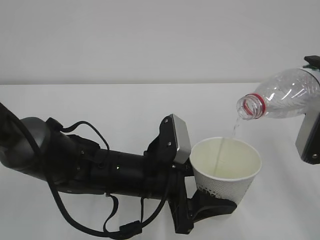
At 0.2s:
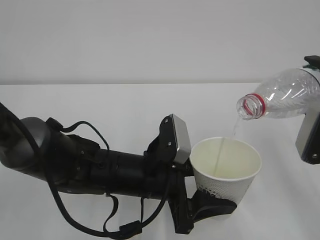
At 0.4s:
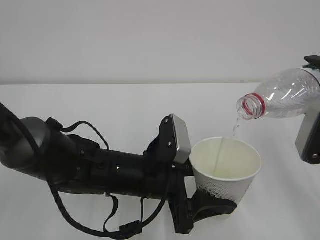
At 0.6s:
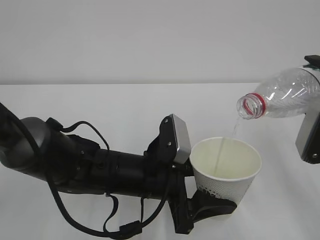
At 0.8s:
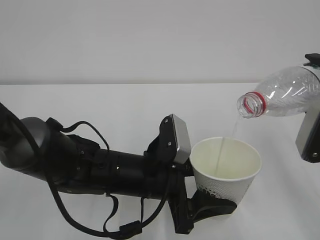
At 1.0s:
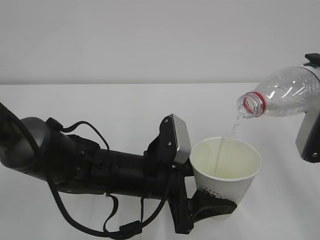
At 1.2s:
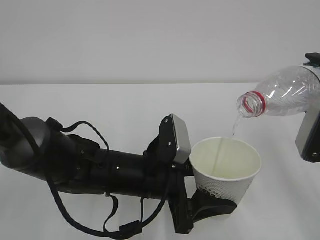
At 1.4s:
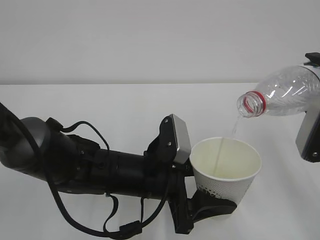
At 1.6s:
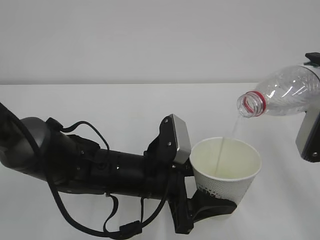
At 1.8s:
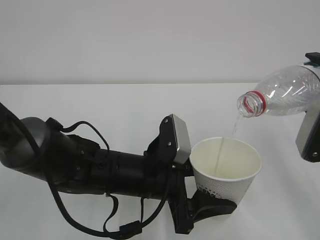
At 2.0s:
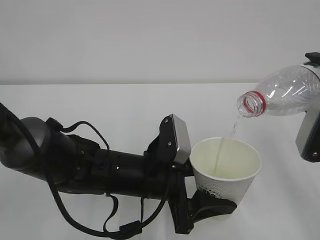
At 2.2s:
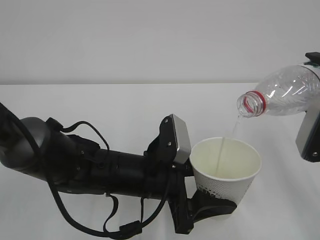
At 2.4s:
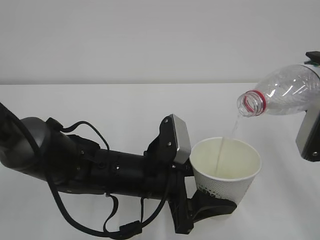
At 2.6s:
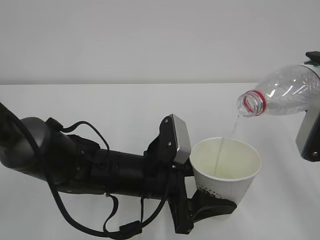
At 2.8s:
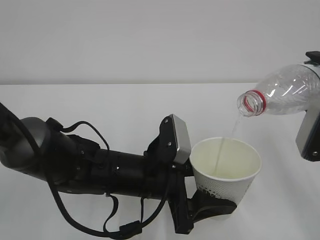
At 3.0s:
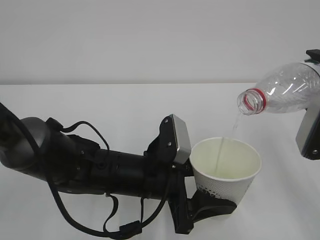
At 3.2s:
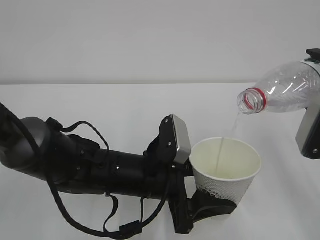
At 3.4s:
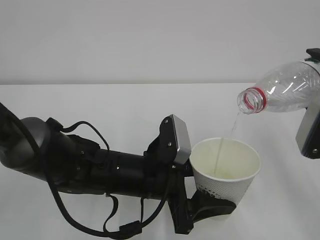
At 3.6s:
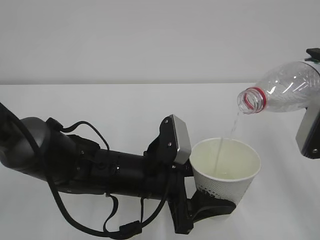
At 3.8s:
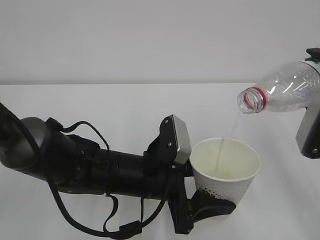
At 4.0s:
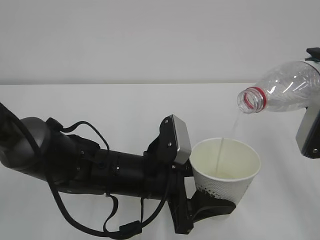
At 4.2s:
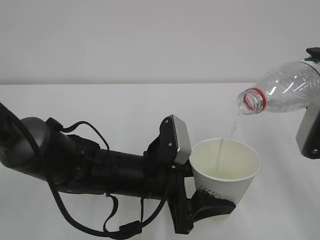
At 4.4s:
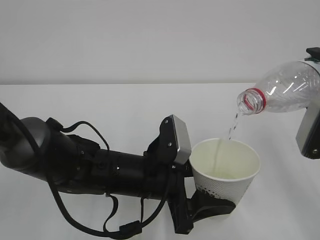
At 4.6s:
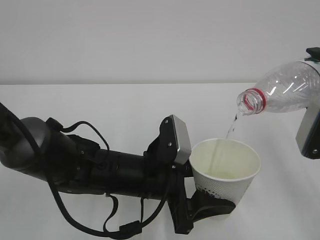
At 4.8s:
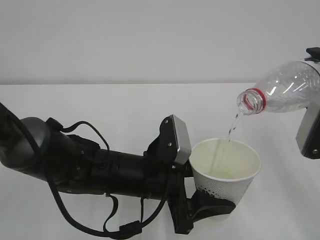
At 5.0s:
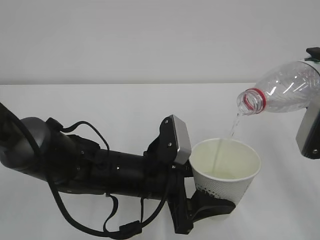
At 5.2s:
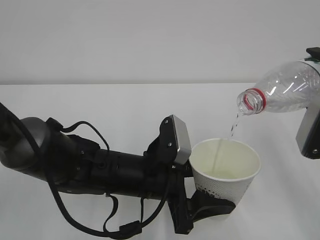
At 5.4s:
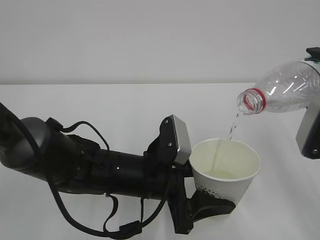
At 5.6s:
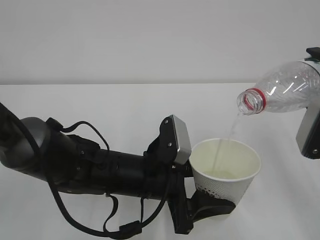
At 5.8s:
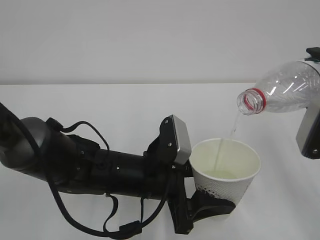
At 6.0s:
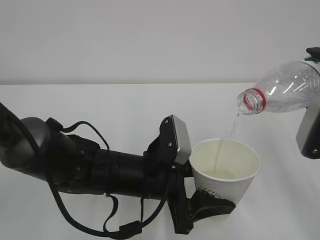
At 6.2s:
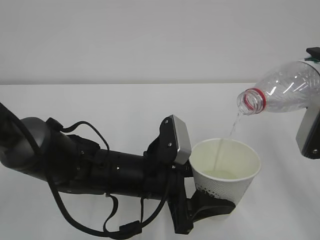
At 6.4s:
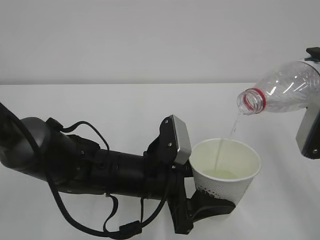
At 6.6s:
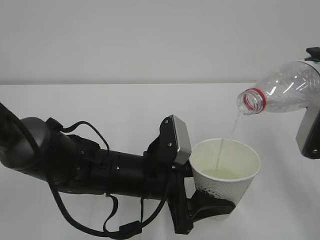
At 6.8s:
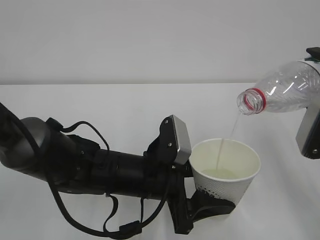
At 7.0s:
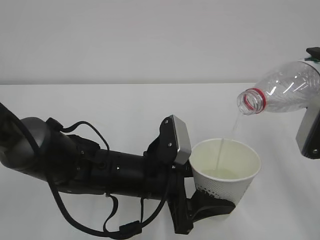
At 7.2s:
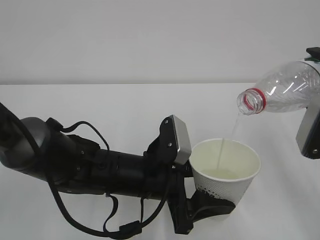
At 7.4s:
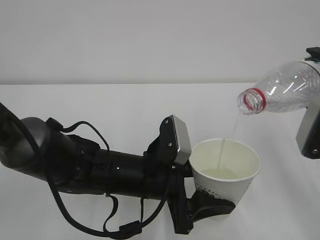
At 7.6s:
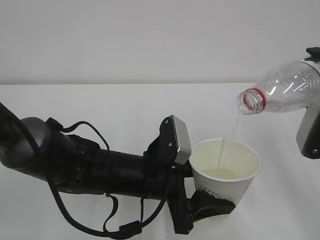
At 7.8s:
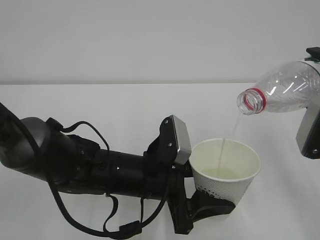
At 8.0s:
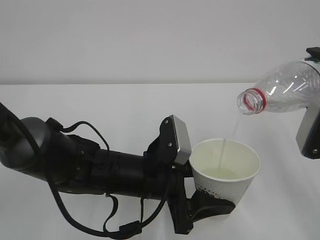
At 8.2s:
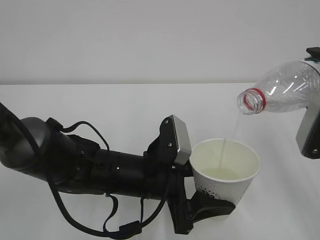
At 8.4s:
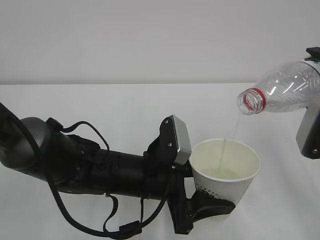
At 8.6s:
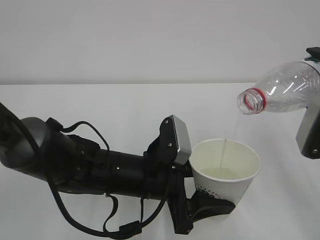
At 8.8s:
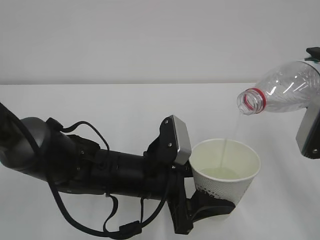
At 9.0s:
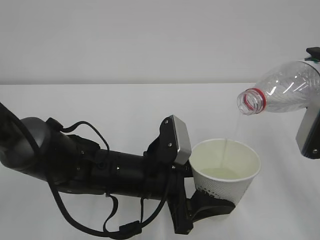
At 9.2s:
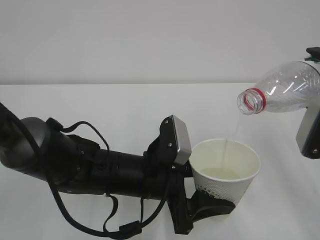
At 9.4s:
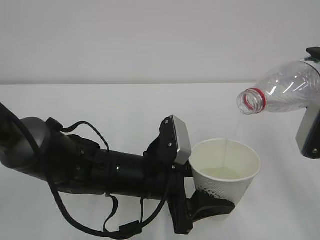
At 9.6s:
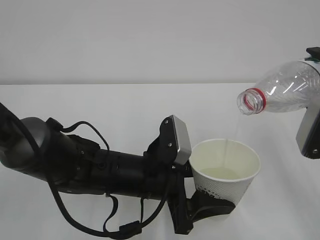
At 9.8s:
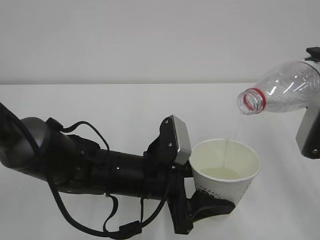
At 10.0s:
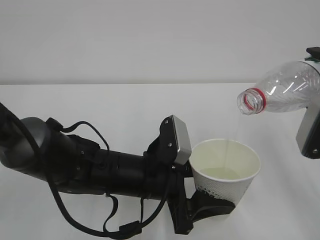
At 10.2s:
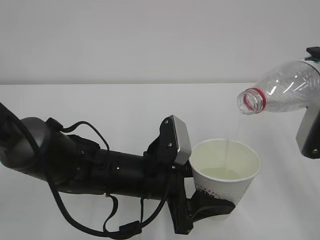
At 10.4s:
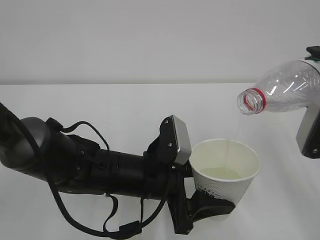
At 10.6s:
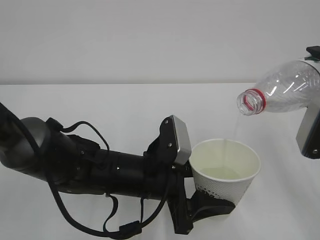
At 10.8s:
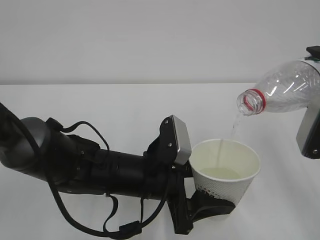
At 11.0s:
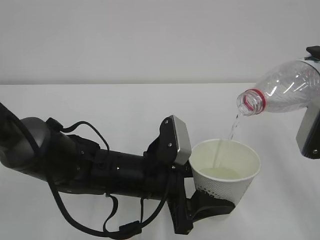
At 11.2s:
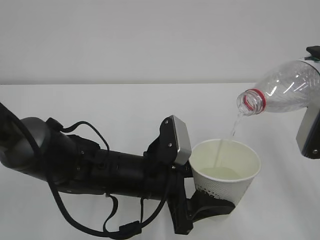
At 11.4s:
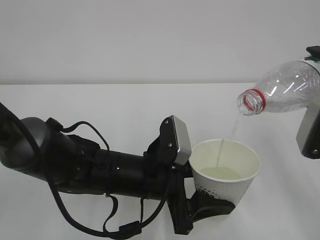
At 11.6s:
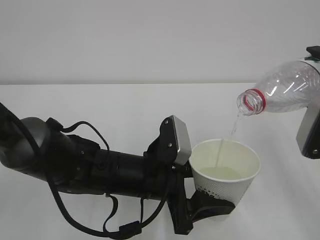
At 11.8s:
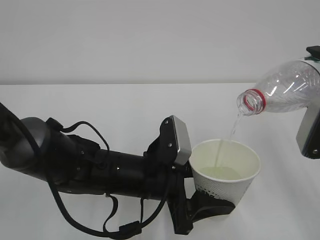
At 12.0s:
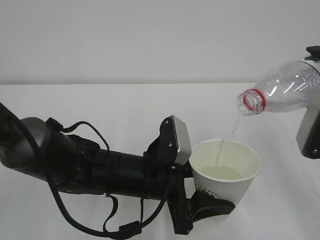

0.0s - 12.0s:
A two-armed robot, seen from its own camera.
0.0s - 12.0s: Both grippers stay about where they are.

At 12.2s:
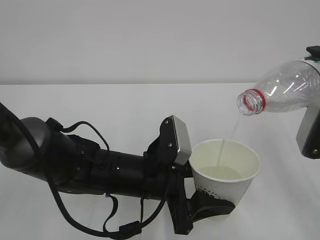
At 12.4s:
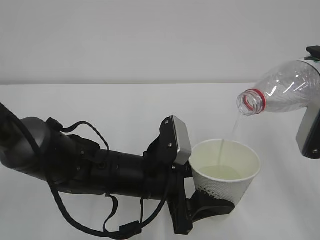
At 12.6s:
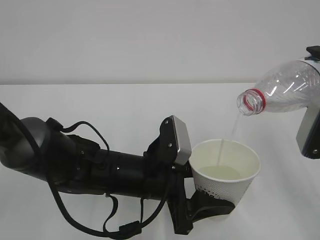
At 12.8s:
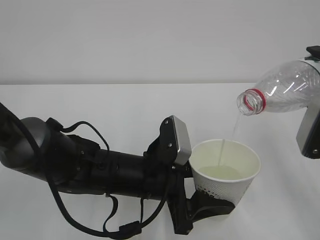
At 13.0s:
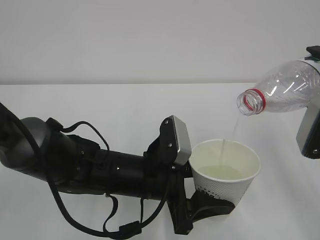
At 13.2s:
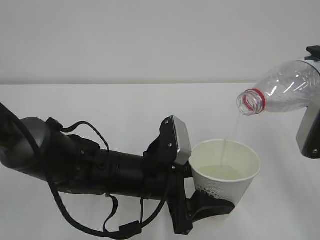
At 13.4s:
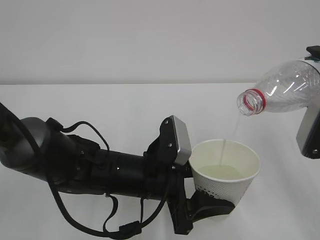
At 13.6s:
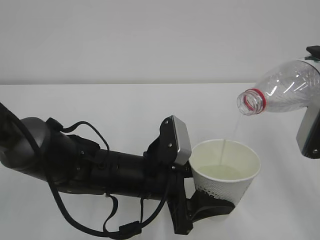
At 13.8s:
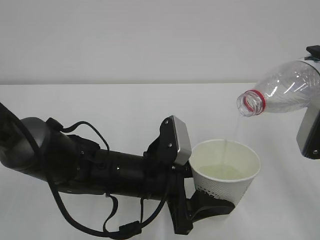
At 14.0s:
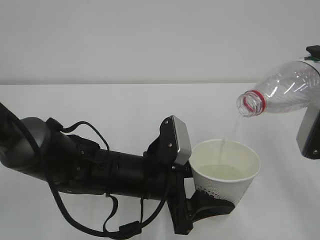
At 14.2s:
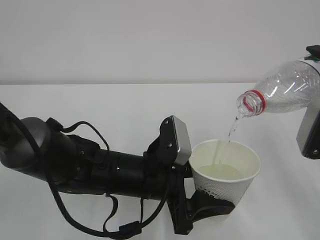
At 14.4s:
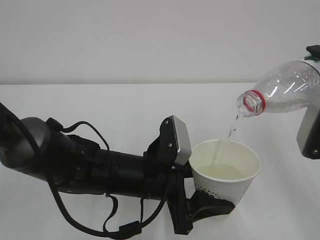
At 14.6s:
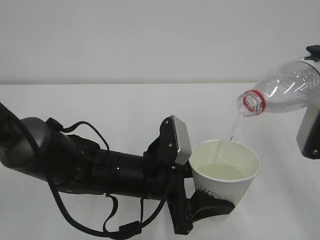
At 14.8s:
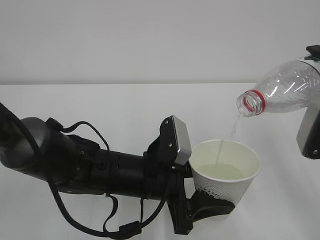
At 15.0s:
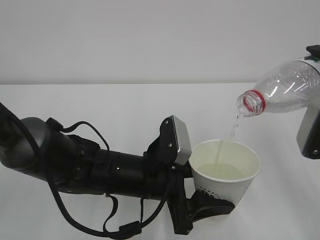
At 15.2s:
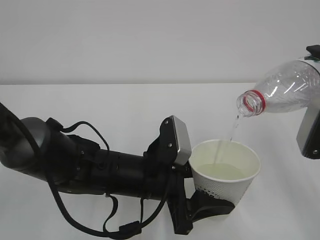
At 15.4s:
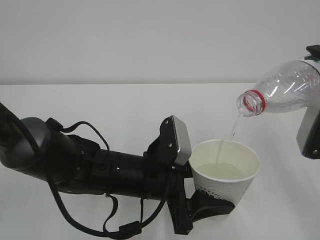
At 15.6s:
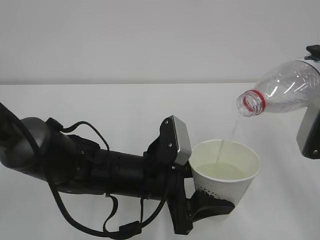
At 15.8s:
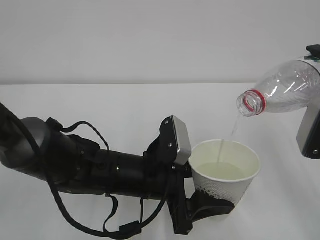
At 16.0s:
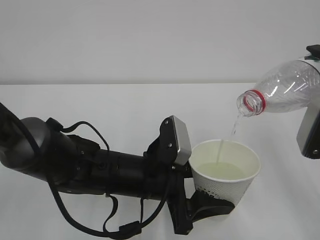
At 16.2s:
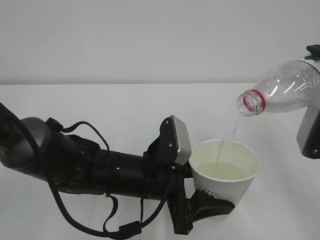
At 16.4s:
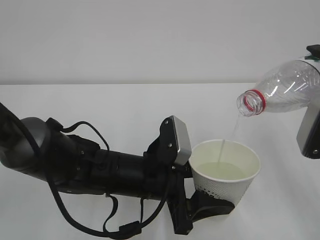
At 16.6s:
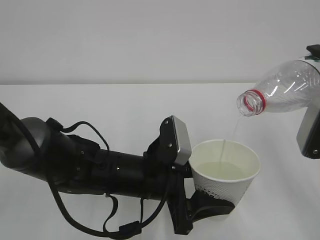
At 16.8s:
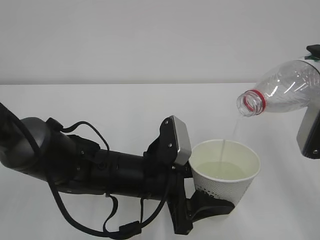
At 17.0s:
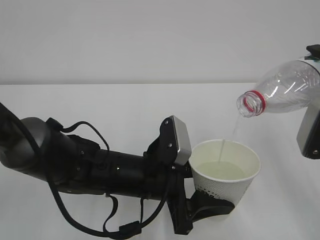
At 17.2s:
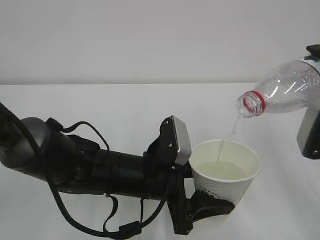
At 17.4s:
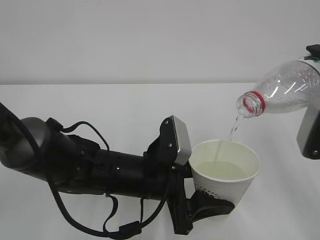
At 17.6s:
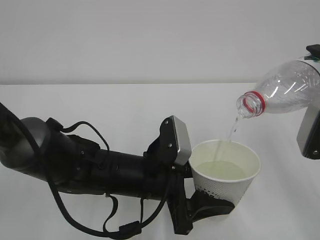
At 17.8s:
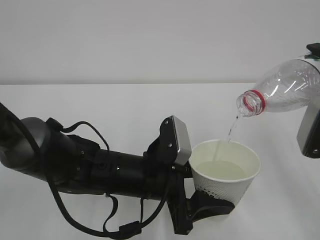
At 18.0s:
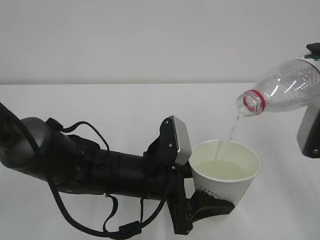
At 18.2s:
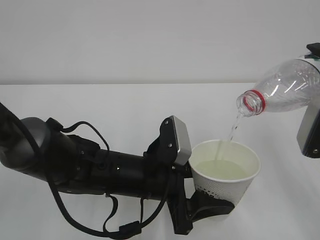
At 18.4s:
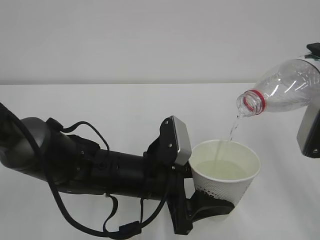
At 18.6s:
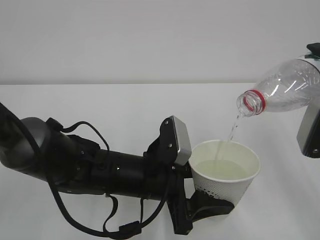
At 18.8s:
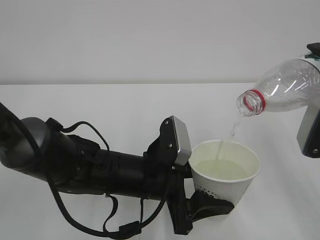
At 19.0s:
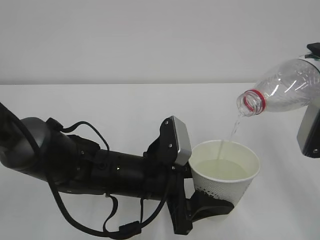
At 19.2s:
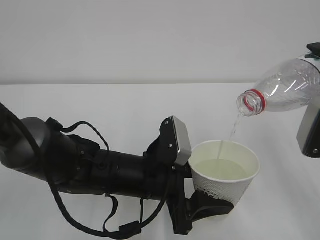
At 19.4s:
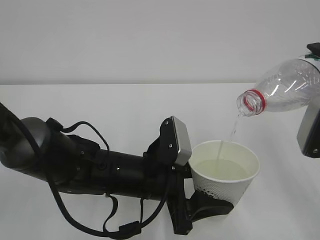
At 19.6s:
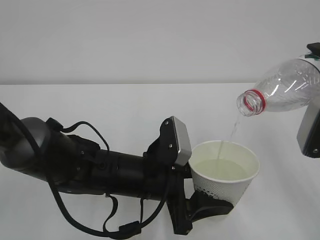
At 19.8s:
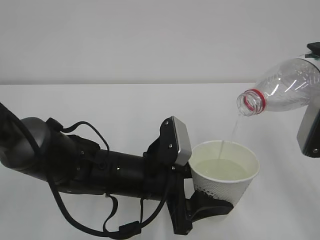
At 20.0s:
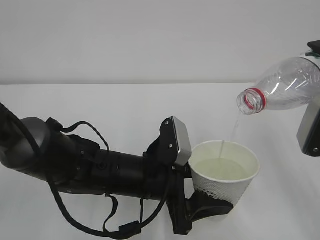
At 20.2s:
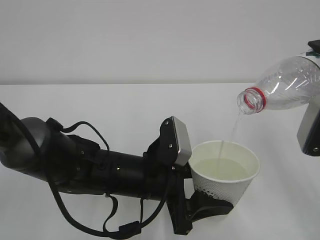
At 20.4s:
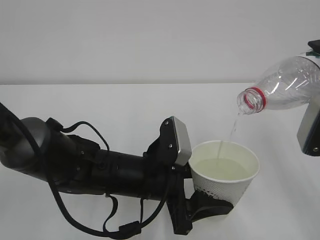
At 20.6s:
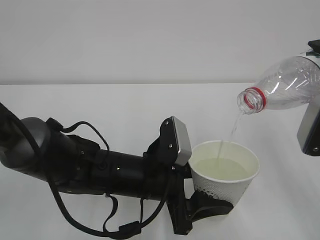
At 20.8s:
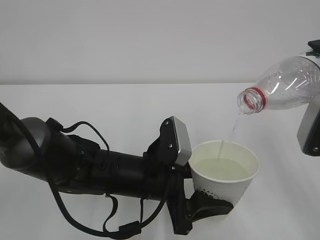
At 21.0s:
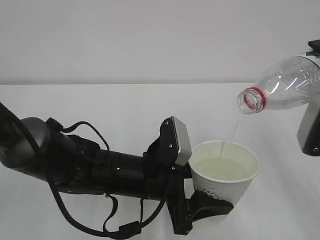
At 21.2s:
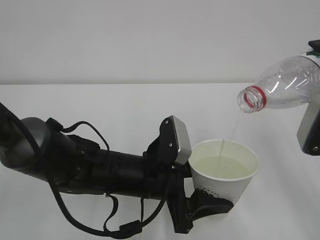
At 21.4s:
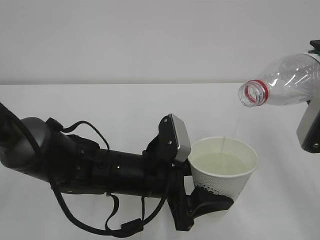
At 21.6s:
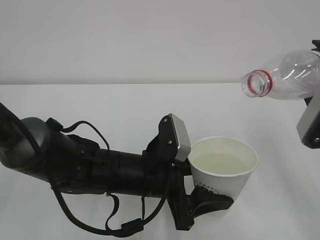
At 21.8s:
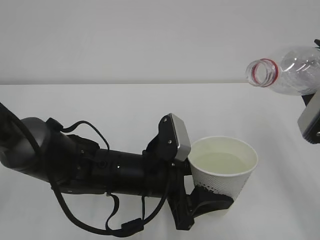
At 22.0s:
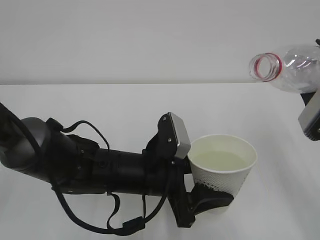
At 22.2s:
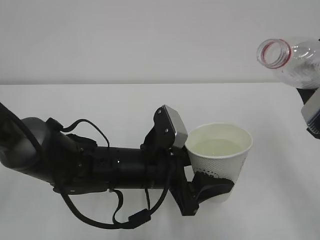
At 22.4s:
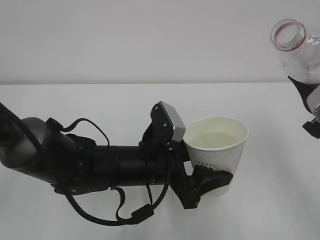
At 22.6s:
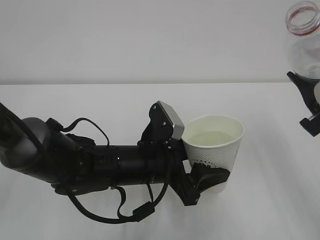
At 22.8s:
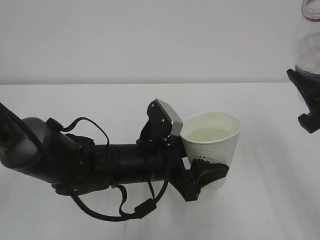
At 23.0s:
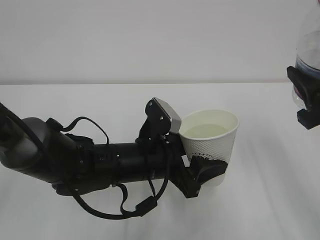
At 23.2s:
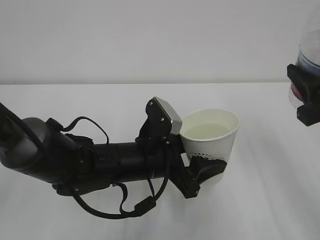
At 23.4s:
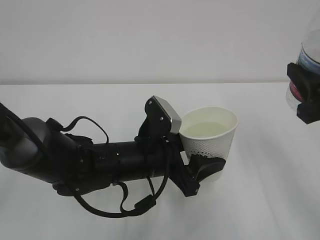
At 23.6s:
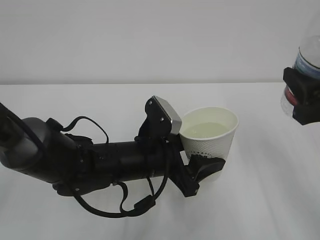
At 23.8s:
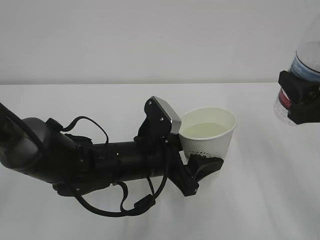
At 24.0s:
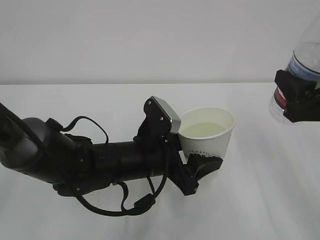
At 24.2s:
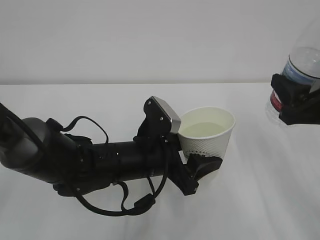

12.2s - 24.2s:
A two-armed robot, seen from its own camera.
12.2s - 21.2s: Neither gripper changes place.
